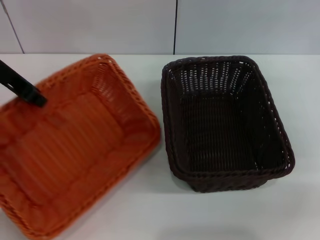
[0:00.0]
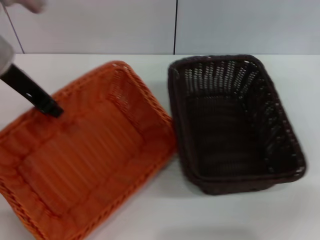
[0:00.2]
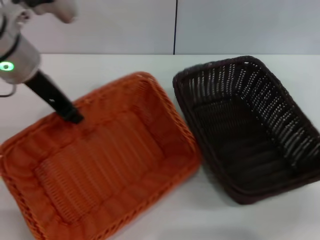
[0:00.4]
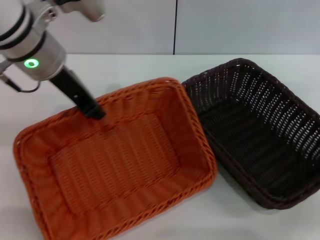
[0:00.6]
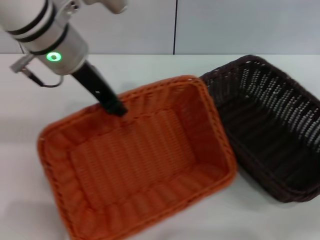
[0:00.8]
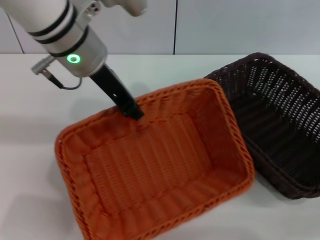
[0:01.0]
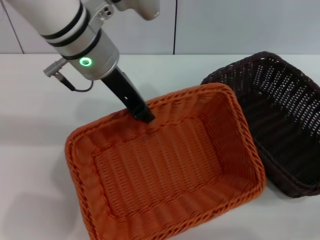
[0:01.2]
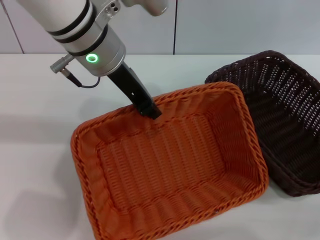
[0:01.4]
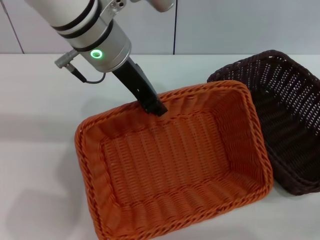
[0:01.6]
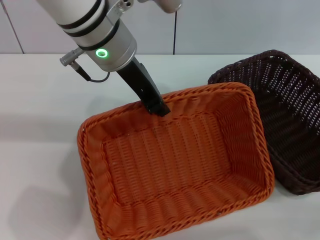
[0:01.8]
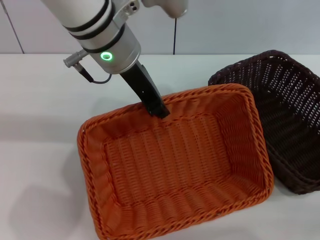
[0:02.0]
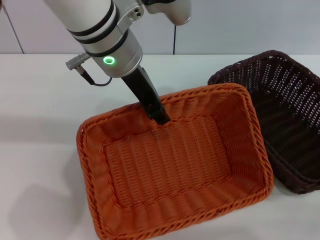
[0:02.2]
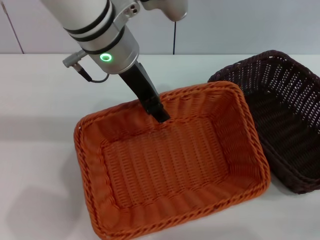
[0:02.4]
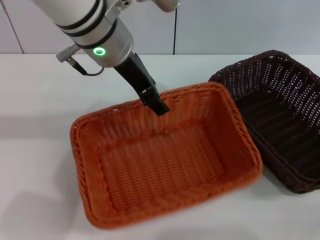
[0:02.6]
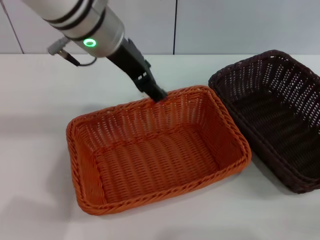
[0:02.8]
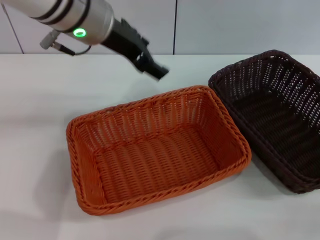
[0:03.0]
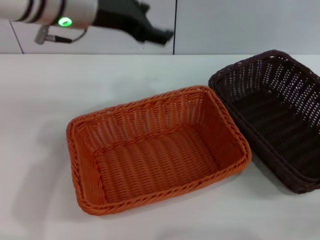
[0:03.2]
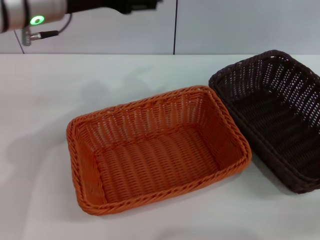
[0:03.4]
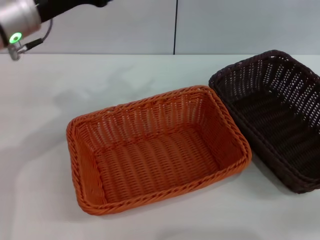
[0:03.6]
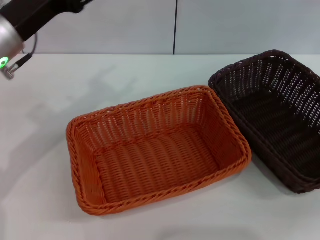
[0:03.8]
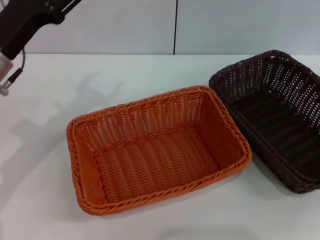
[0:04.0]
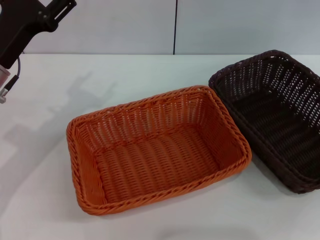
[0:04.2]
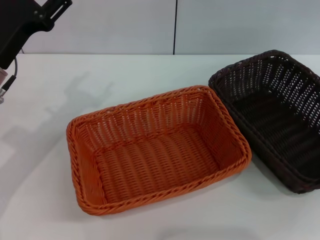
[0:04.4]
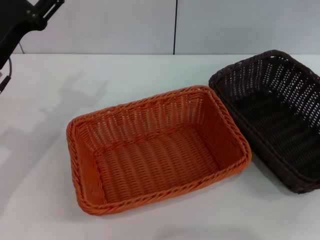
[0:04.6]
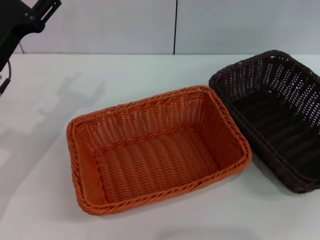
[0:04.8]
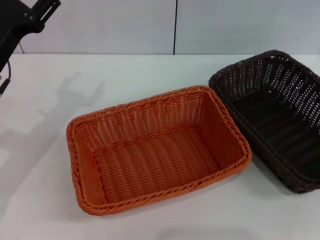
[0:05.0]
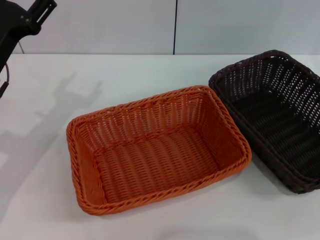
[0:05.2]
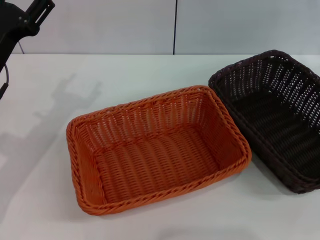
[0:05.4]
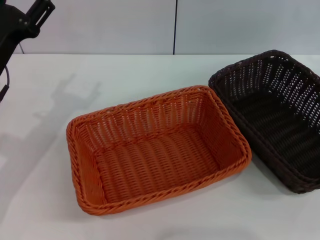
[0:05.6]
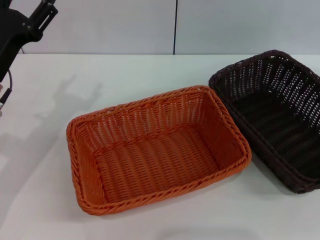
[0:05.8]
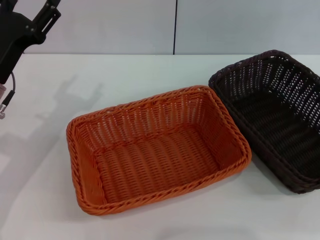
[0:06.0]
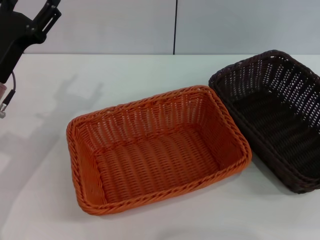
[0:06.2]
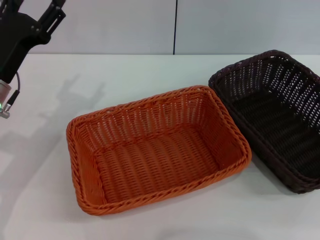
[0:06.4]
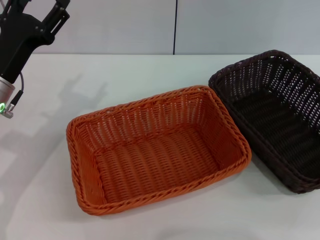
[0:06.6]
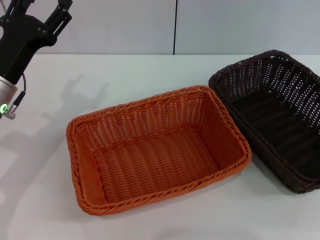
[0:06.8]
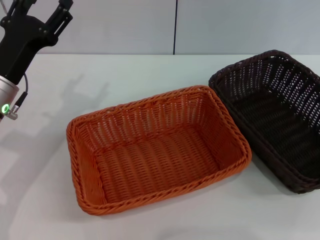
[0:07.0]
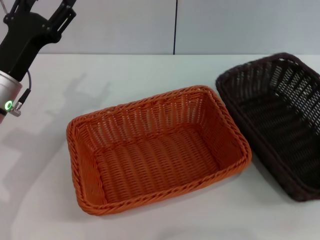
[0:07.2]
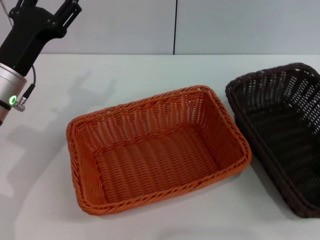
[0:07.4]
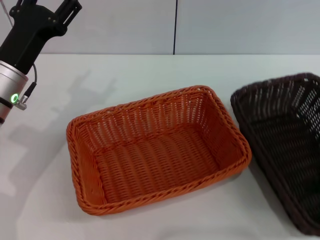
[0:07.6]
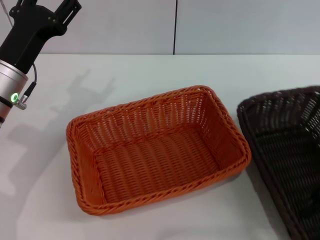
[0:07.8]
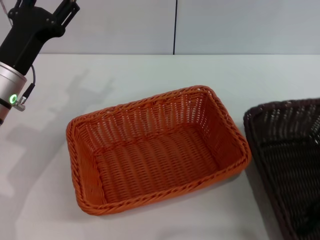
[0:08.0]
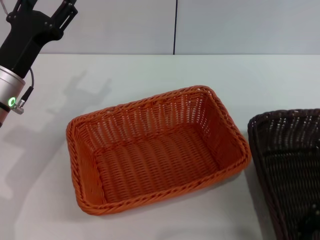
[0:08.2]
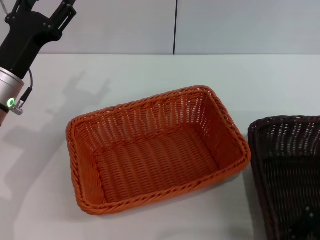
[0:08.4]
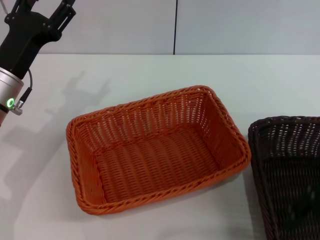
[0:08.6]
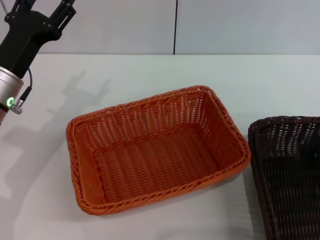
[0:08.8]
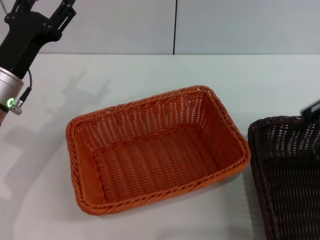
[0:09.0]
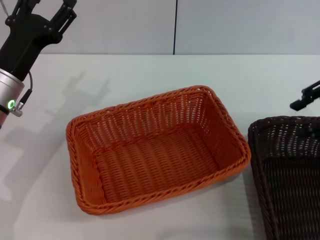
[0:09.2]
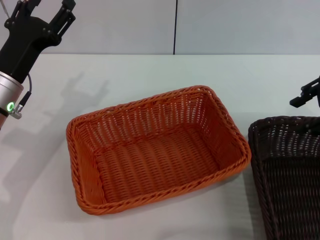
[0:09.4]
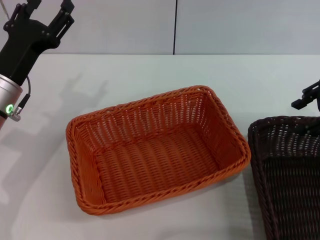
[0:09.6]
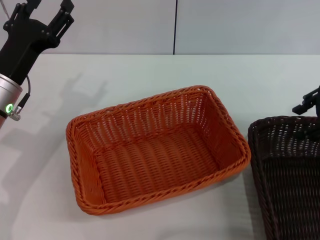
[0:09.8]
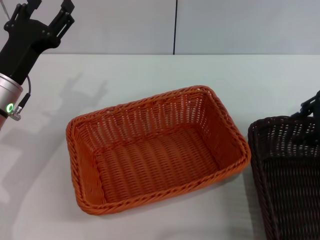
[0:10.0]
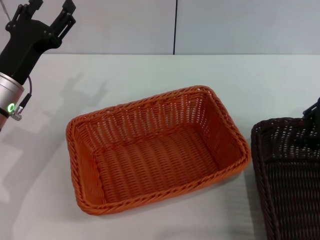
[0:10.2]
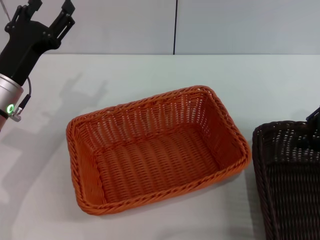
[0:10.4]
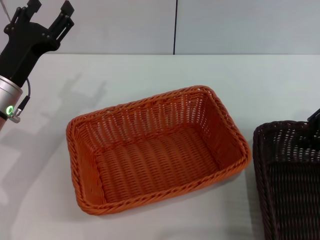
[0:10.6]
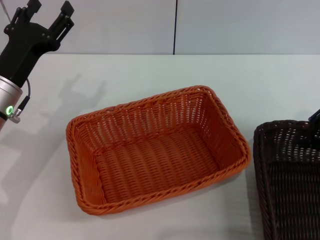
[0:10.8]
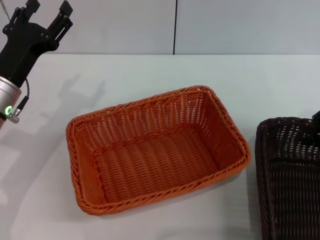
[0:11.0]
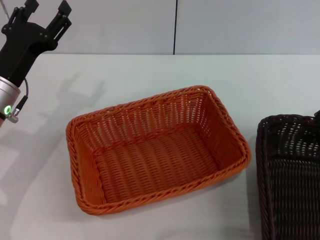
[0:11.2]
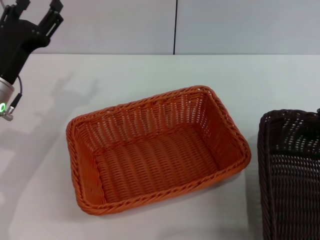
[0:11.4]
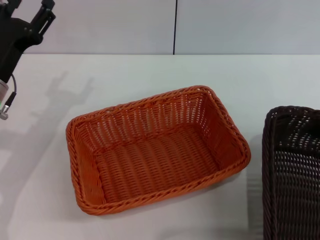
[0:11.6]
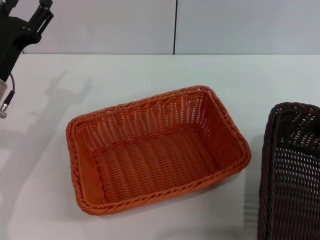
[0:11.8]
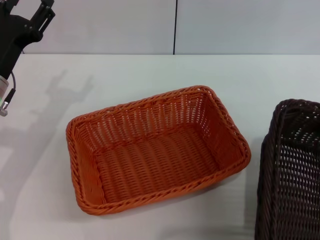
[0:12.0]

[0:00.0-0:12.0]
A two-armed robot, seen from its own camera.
Step, 0:00.0 to 0:02.6: Place the light basket in the center of view with the left gripper.
Step, 0:02.8 to 0:11.4: Pick up the dark basket with the right gripper.
0:00.0 to 0:01.6: The right gripper shifts by approximately 5 cm; the left gripper travels to the right by some 15 cm.
0:01.6 to 0:03.0: The left gripper opens up.
0:03.0 to 0:04.4: The left gripper moves to the left and downward, approximately 20 cm. The right gripper goes roughly 10 cm forward and upward.
0:06.0 to 0:07.6: The right gripper heads backward, to the left and downward, covering roughly 10 cm.
0:07.6 to 0:09.0: The right gripper shifts roughly 5 cm upward.
0:09.0 to 0:10.4: The right gripper heads downward, covering some 5 cm.
0:10.4 to 0:12.0: The right gripper goes about 5 cm backward, and closes up.

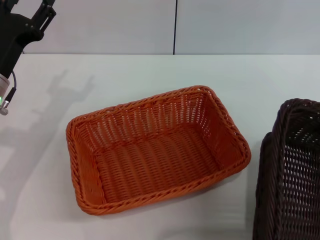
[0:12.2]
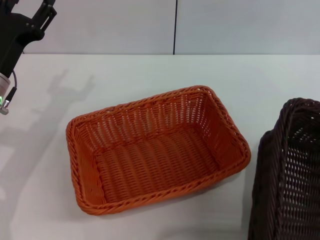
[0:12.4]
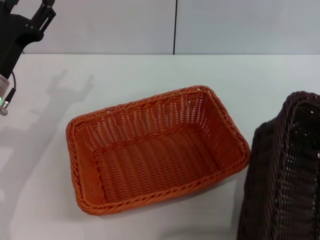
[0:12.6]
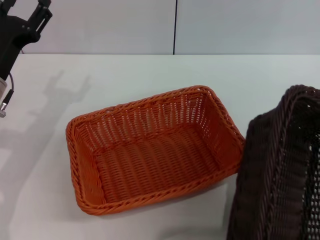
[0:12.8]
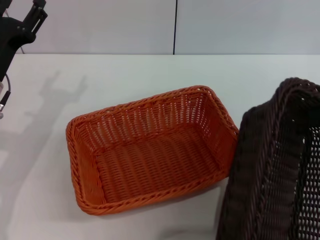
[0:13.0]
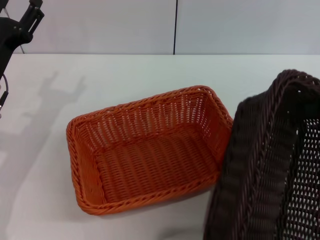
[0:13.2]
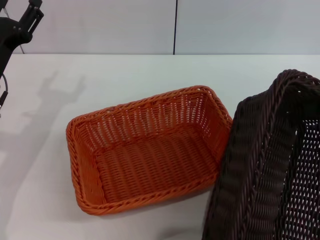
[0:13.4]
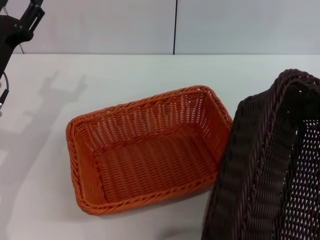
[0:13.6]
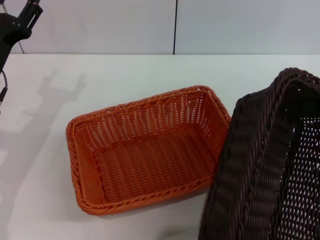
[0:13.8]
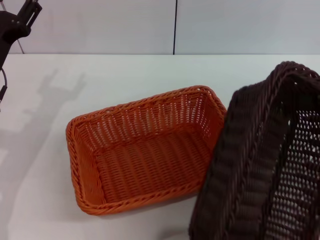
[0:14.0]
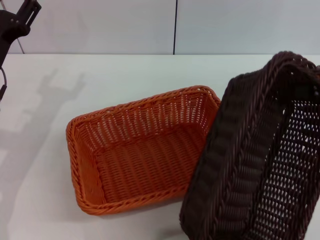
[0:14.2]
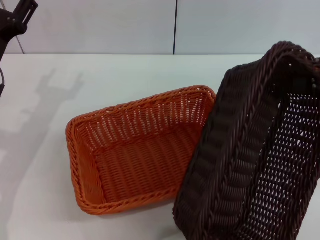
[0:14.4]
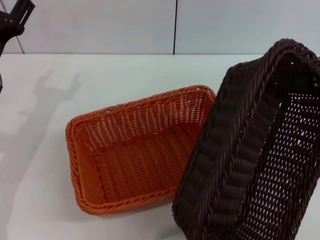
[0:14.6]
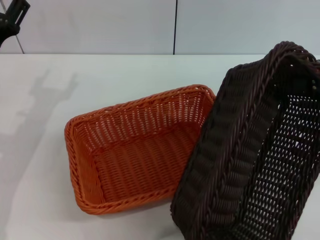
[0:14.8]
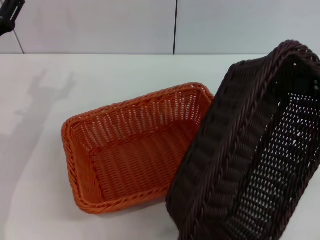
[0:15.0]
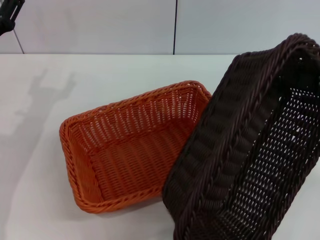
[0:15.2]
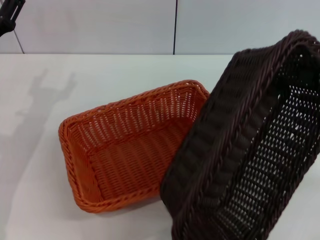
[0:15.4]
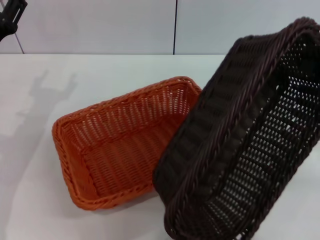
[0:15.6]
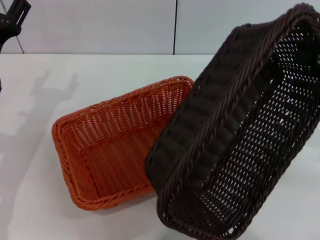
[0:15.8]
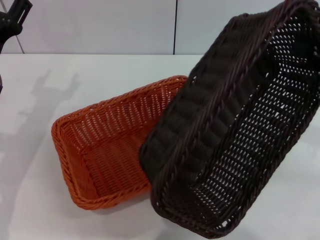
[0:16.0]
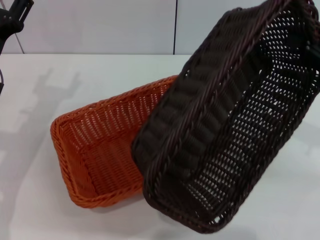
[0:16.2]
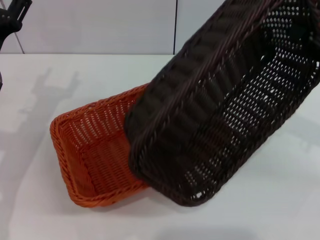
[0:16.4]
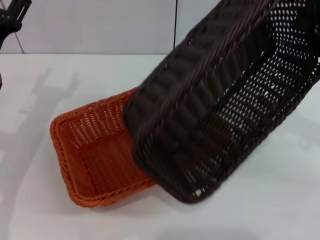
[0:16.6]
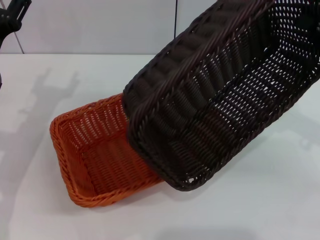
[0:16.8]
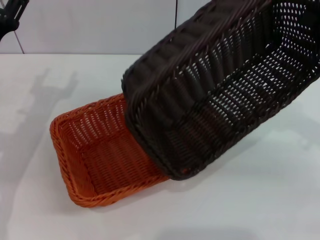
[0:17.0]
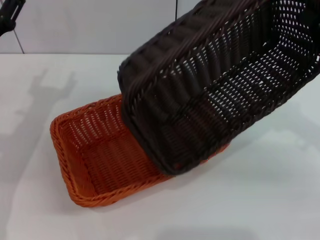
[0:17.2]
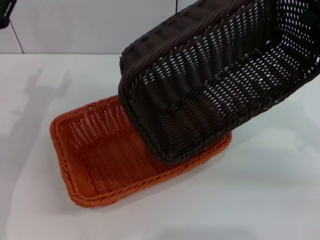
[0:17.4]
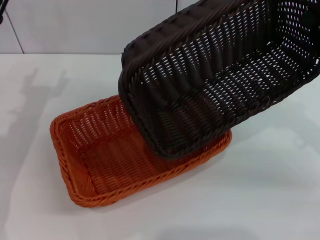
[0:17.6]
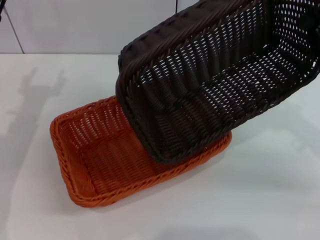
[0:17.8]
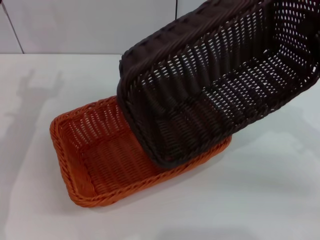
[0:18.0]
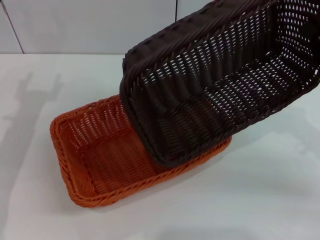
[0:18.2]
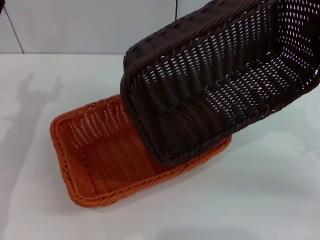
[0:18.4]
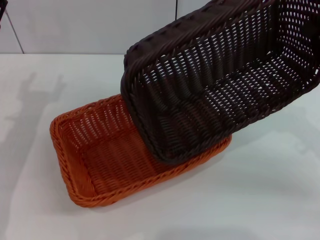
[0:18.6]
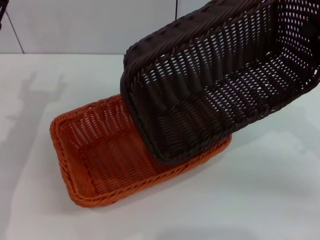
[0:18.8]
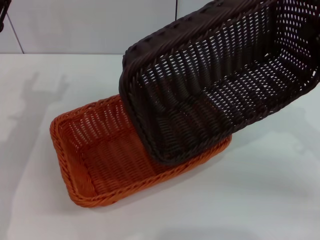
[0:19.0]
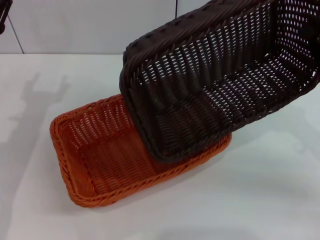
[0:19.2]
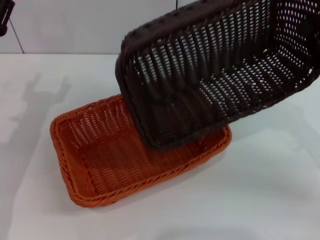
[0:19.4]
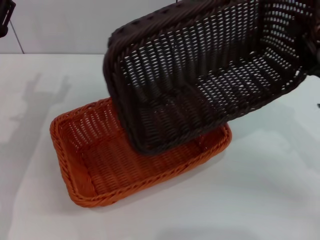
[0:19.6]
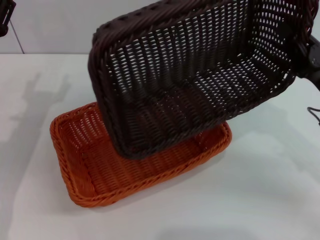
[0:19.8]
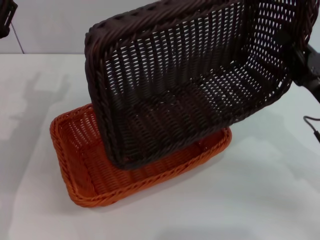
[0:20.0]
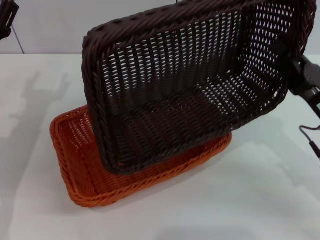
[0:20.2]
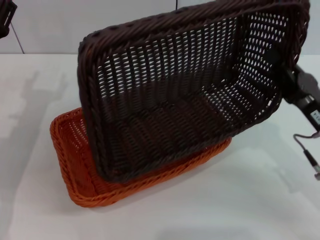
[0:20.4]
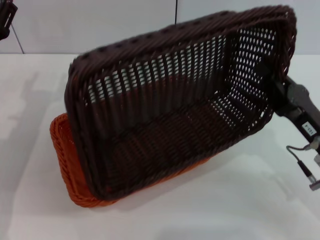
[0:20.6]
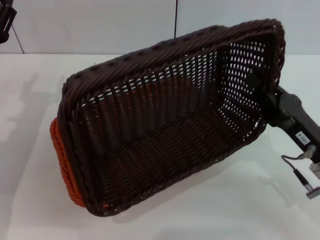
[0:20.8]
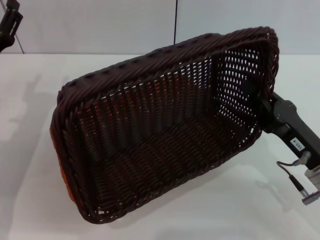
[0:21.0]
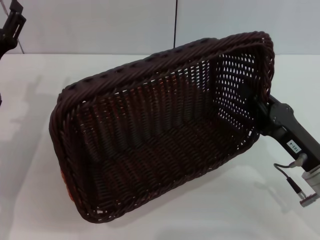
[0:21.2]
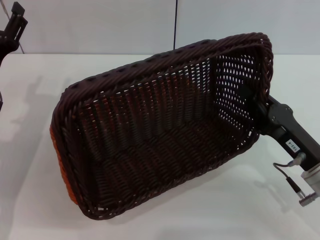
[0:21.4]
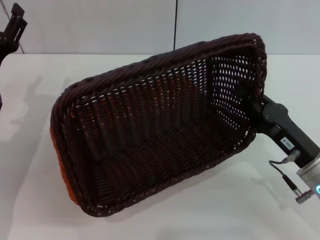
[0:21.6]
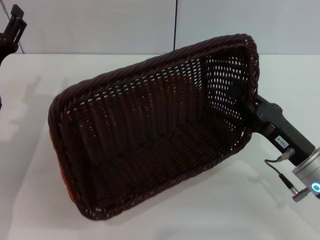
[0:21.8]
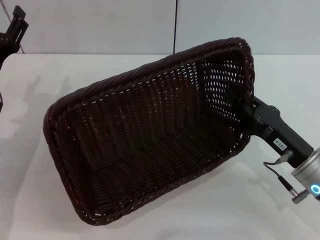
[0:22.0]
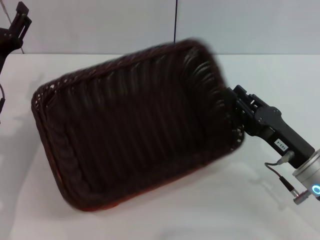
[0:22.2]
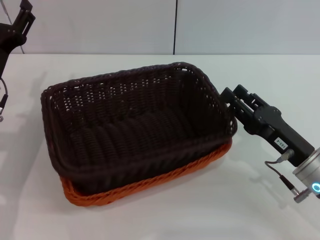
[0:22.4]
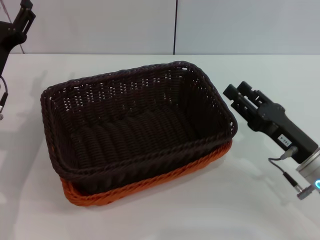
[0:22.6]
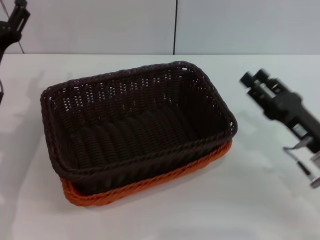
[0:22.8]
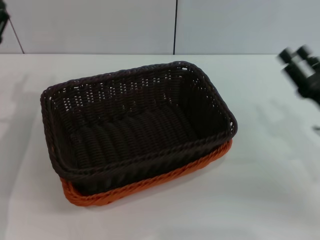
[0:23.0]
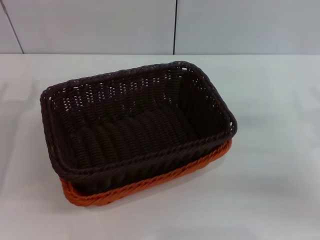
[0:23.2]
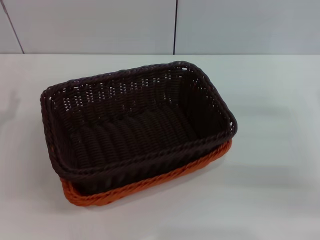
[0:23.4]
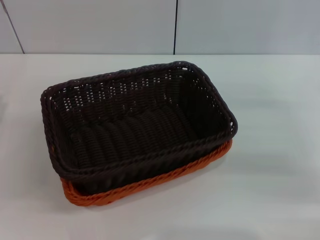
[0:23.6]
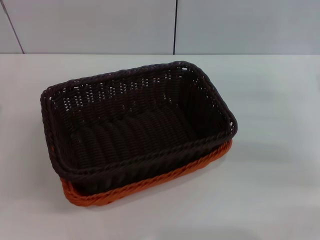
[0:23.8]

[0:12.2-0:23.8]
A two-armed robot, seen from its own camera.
Step, 0:12.2 to 0:22.4: Place the dark basket on the light basket with the right gripper.
0:12.2 to 0:13.6: The grippers stay close to where they were, moving slightly.
0:13.6 to 0:15.0: The grippers stay close to where they were, moving slightly.
0:16.6 to 0:18.0: The right gripper ends up roughly 5 cm from where it was.
0:18.0 to 0:19.4: The grippers stay close to where they were, moving slightly.
0:19.4 to 0:21.0: The right gripper is displaced to the left, backward and downward by about 10 cm.
0:21.0 to 0:22.4: The right gripper opens up.
0:22.4 to 0:23.8: The left gripper travels to the left and backward by roughly 10 cm, while the right gripper travels to the right, forward and upward by approximately 15 cm, and opens its fingers.
